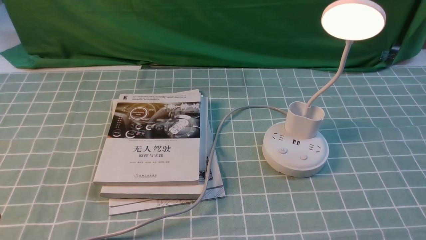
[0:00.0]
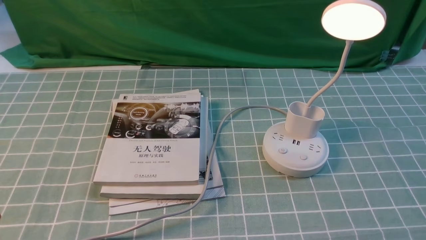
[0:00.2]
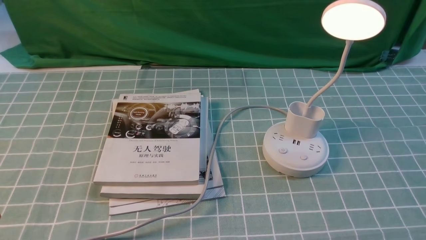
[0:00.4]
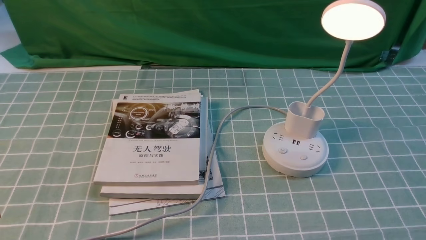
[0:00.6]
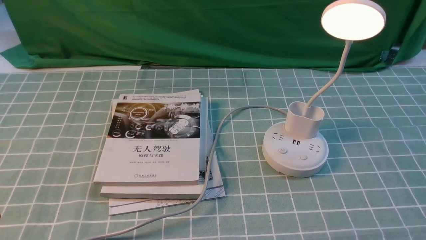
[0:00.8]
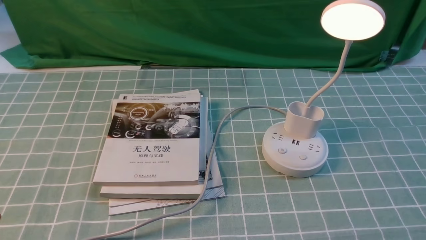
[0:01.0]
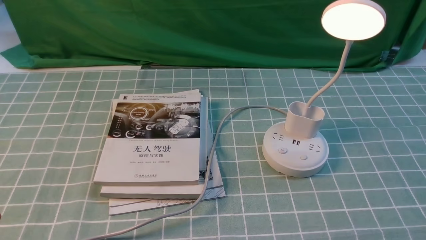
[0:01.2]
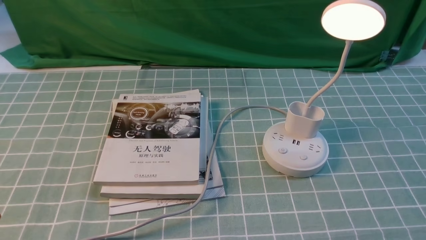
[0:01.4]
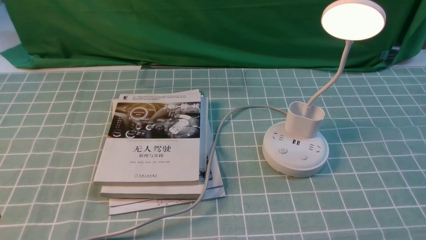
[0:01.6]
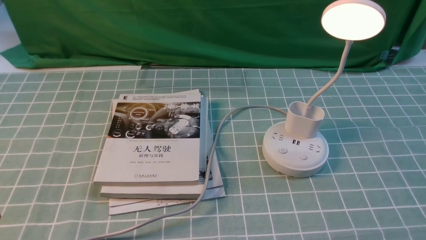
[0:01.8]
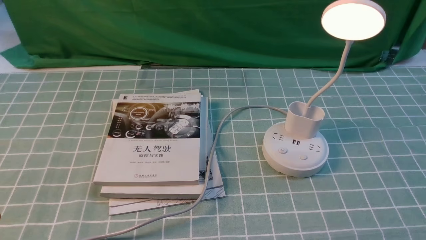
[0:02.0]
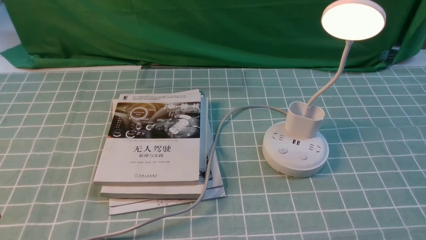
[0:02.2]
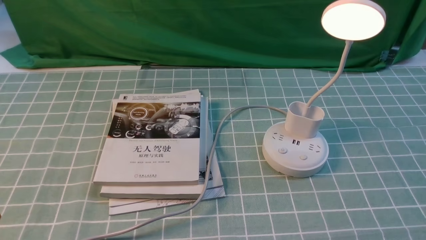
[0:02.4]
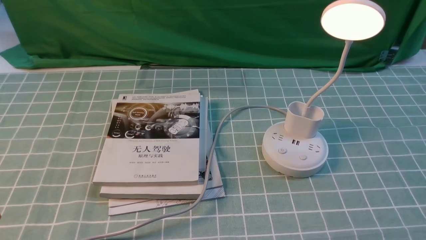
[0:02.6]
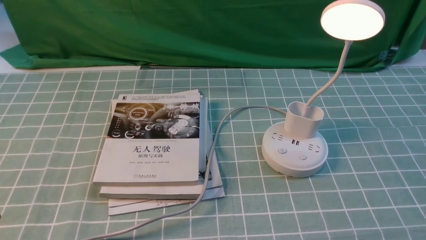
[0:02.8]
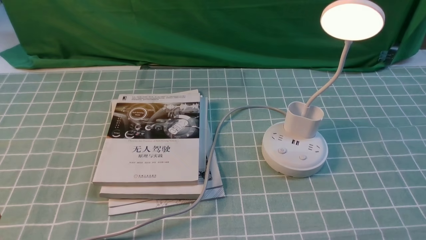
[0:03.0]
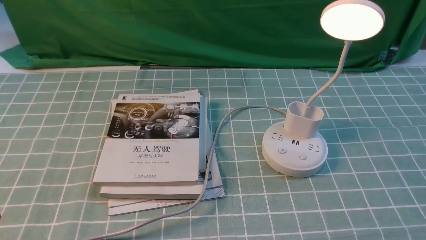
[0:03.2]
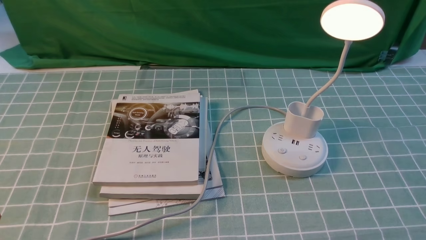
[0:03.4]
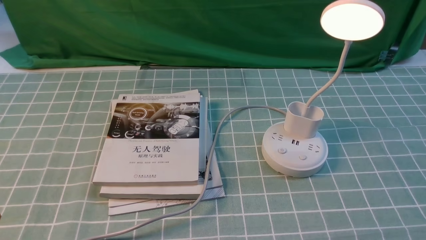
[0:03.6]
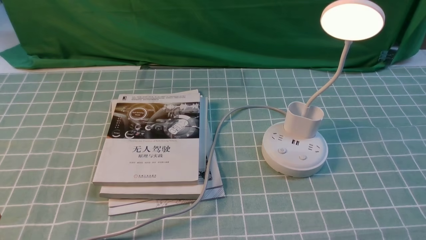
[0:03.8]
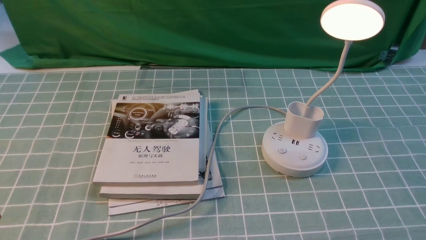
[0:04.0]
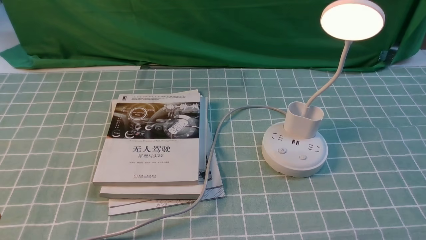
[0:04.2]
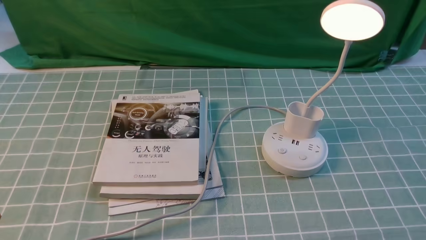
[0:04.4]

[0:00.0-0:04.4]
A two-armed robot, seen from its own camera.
0:01.4 to 0:04.4: Both grippers stay put.

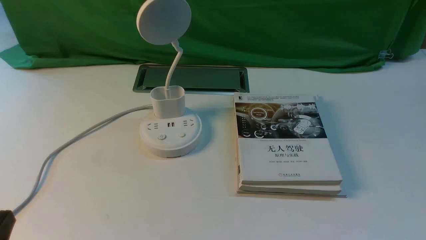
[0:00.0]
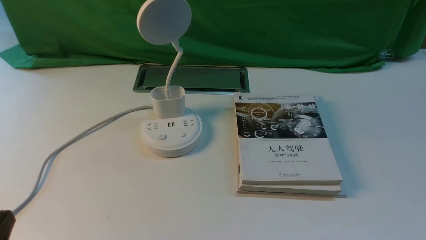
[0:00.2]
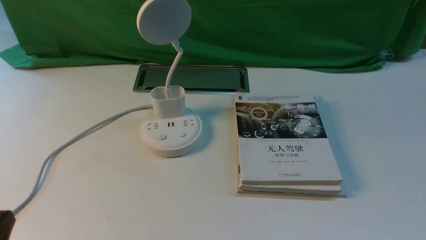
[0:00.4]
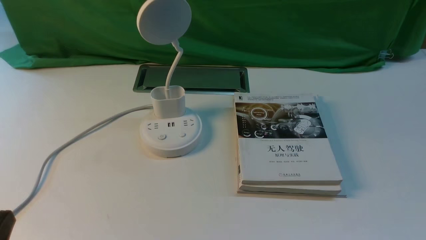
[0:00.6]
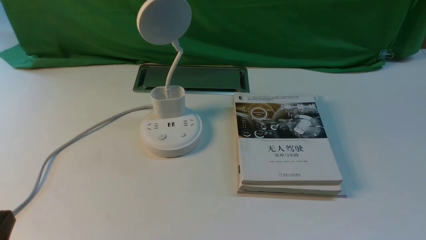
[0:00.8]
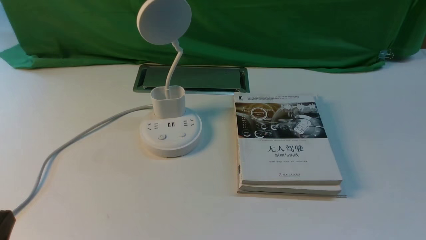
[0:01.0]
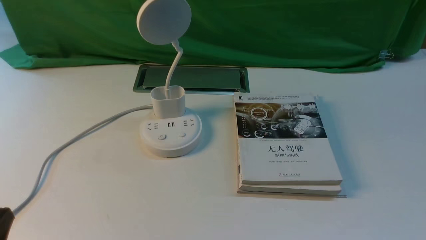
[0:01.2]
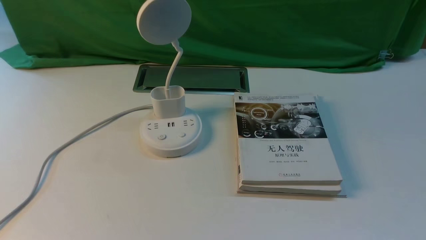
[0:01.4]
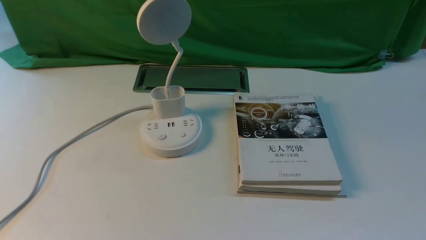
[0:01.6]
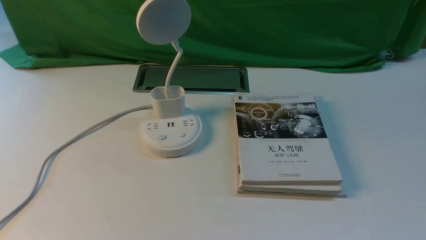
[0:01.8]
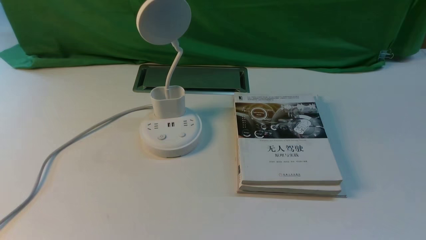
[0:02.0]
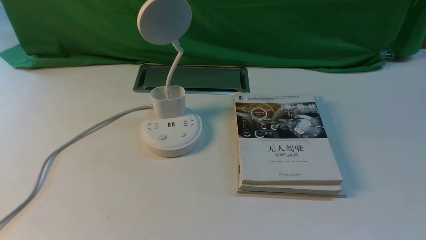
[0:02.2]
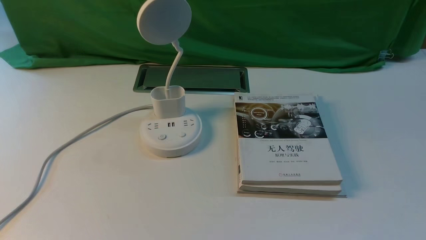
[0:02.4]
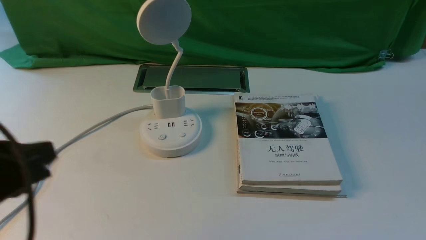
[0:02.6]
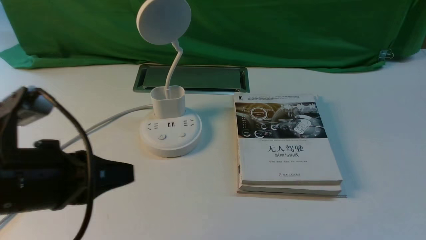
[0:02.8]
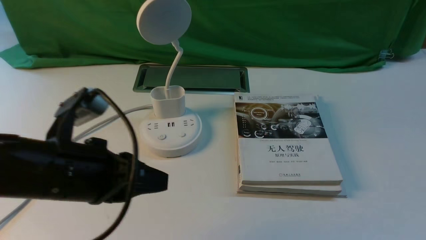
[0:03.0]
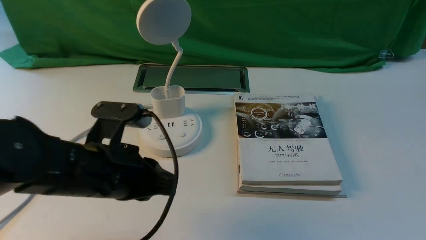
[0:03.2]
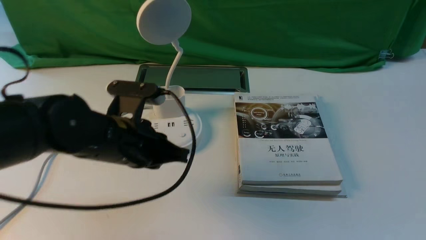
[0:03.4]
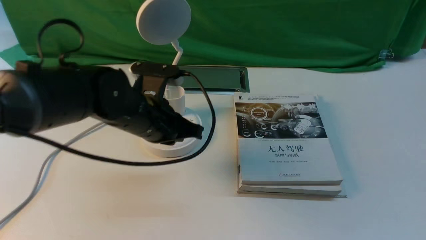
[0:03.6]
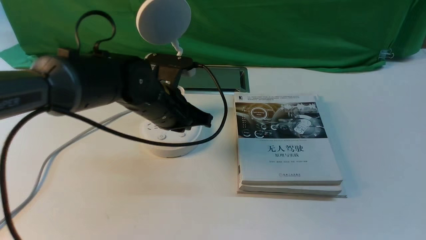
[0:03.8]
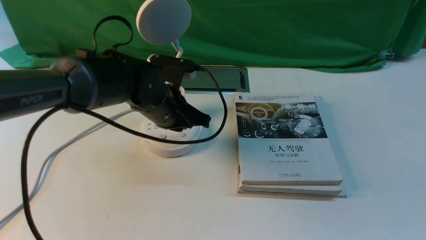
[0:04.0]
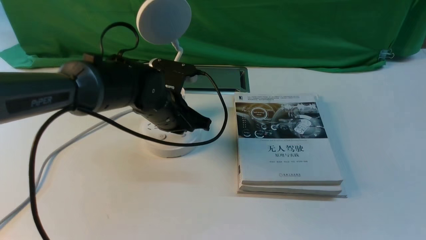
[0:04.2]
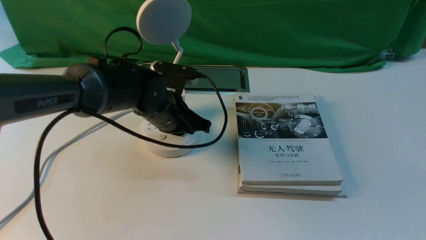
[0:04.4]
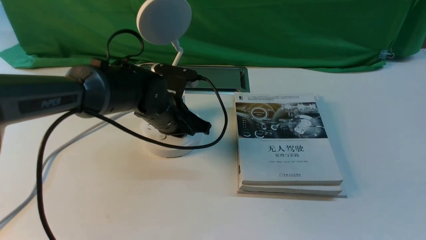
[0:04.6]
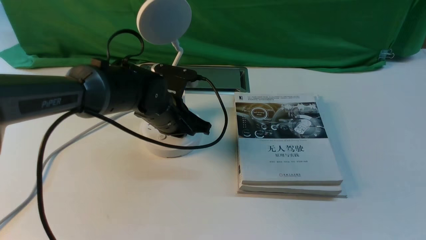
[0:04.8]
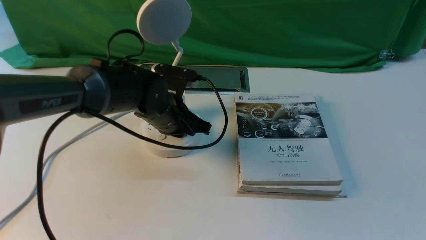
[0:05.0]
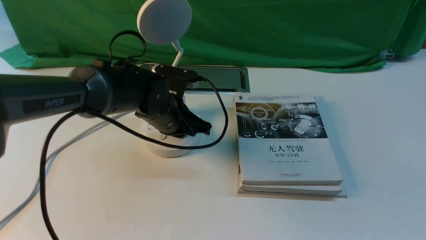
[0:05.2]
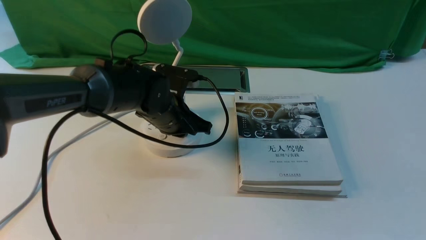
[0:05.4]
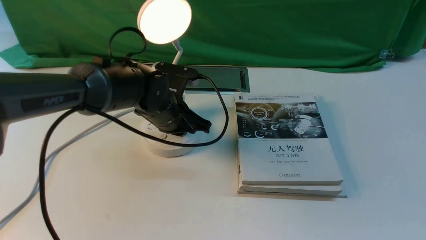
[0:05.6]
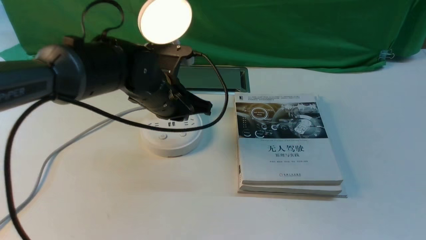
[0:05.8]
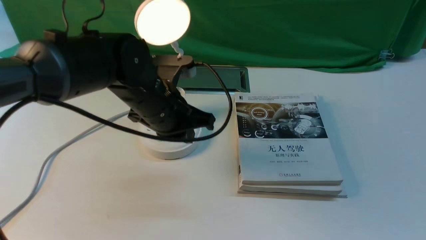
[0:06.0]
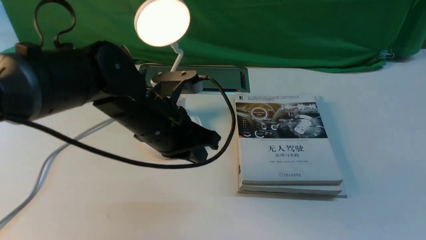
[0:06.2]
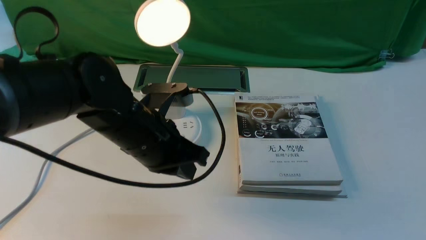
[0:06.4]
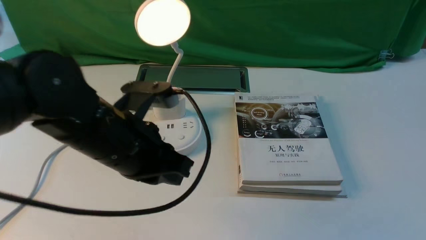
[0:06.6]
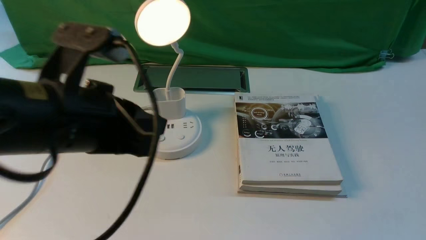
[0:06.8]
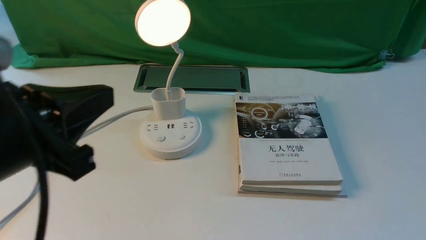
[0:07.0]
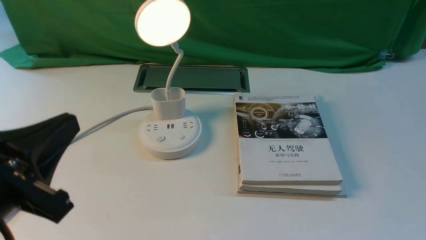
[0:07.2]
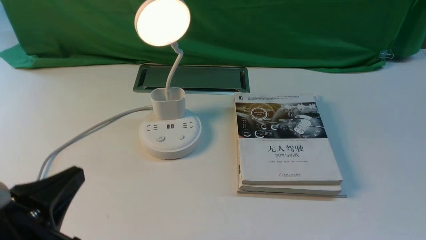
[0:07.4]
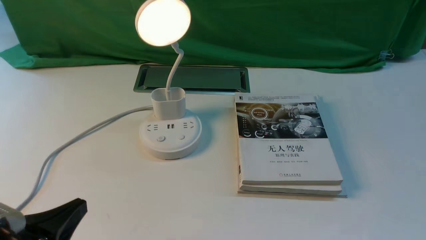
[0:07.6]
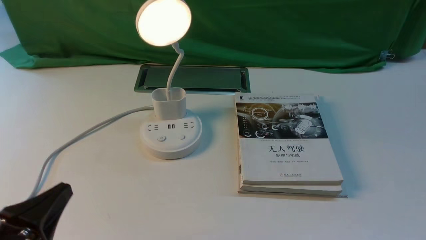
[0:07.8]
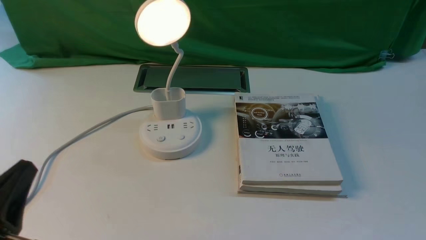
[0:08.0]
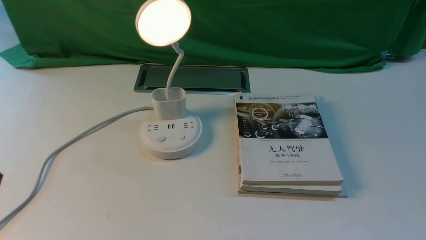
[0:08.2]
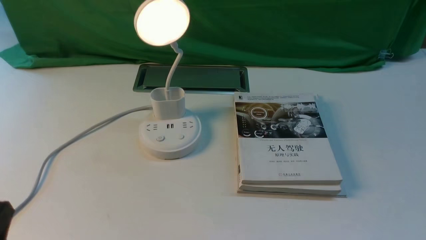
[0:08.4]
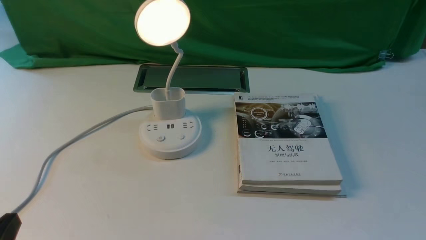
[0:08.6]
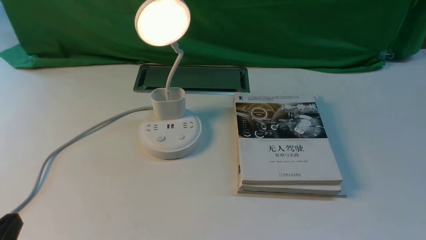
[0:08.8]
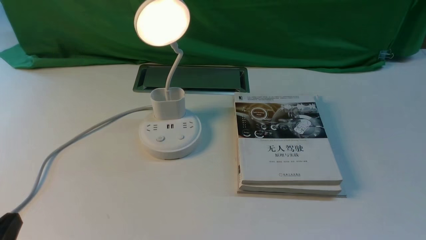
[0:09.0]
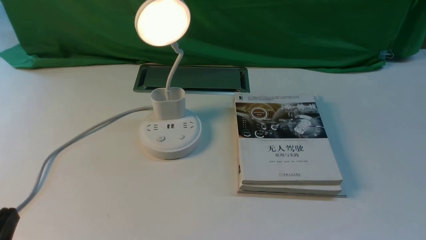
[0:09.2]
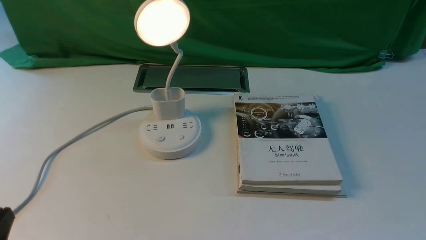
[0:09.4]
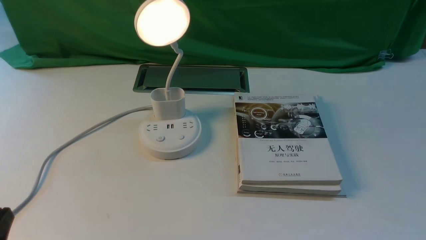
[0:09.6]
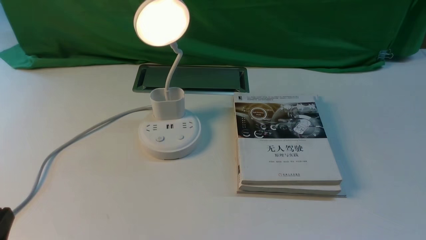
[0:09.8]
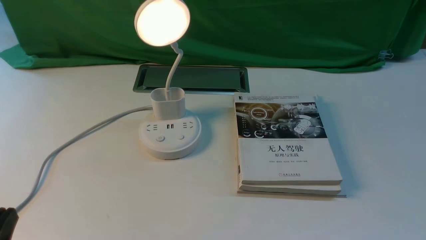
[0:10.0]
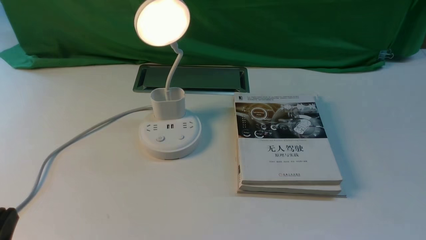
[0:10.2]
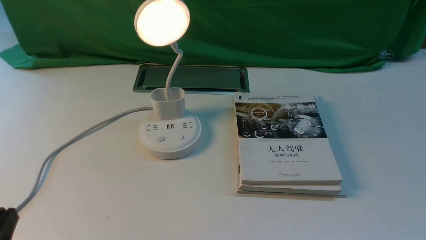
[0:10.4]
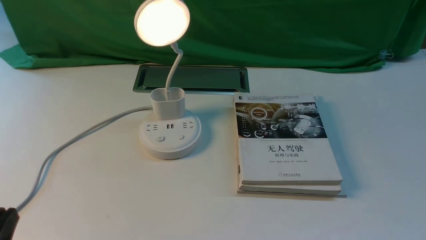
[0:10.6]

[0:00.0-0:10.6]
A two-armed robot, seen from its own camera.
Step, 0:00.0 to 0:06.4: use the left arm to press the button switch on the lamp holder.
0:01.6 to 0:03.0: The left gripper is displaced forward and to the right by roughly 20 cm.
0:03.0 to 0:04.6: The left gripper moves forward, to the right and downward, approximately 20 cm.
0:04.6 to 0:06.0: The left gripper moves upward, about 5 cm.
0:06.0 to 0:07.6: The left gripper is displaced backward and to the left by about 25 cm.
0:07.6 to 0:09.0: The left gripper ends up approximately 5 cm from where it was.

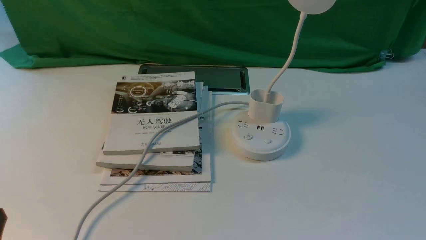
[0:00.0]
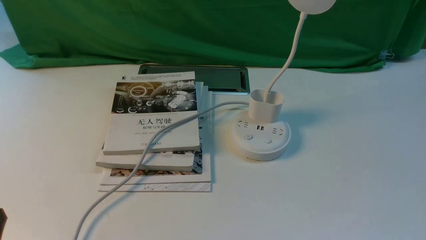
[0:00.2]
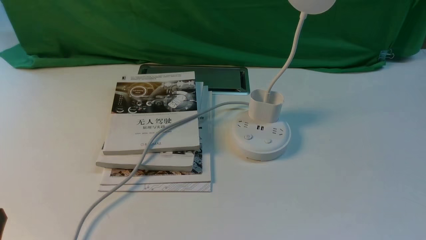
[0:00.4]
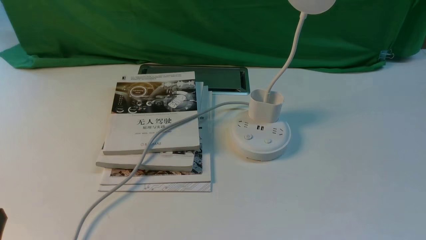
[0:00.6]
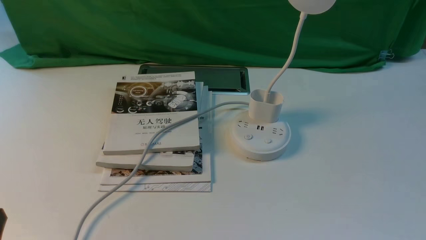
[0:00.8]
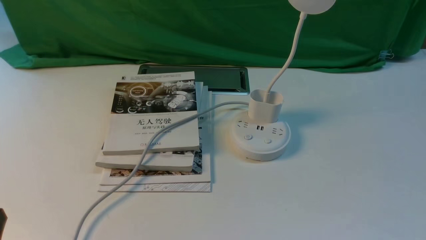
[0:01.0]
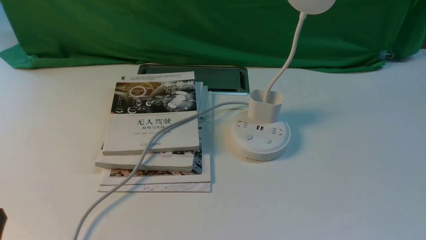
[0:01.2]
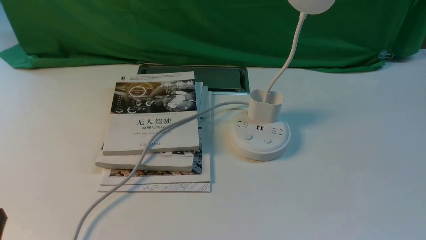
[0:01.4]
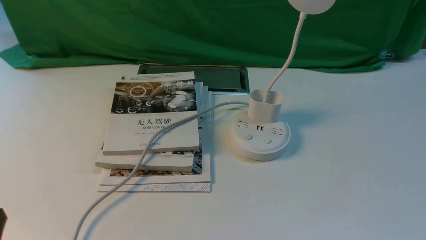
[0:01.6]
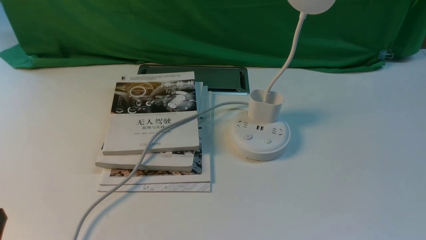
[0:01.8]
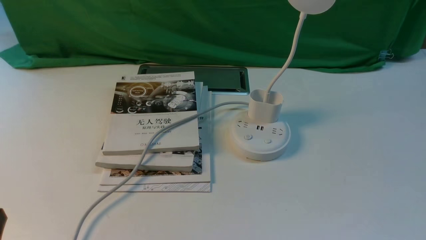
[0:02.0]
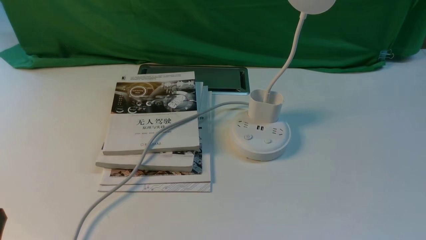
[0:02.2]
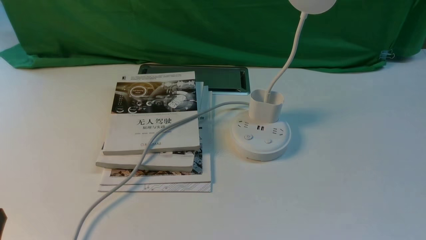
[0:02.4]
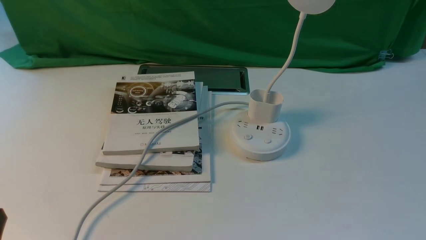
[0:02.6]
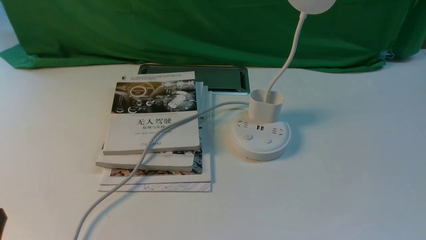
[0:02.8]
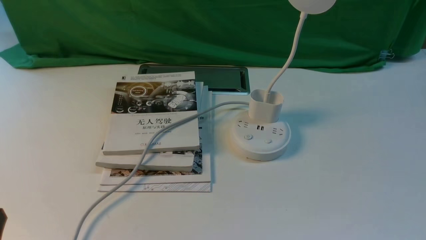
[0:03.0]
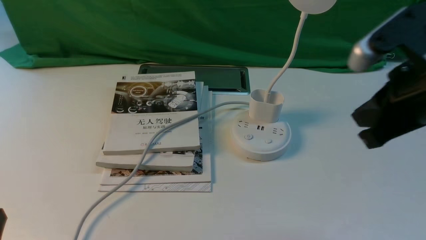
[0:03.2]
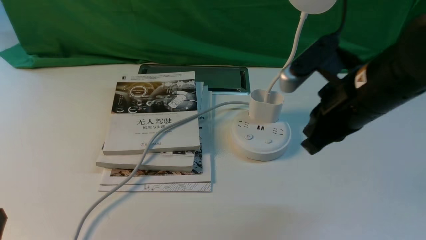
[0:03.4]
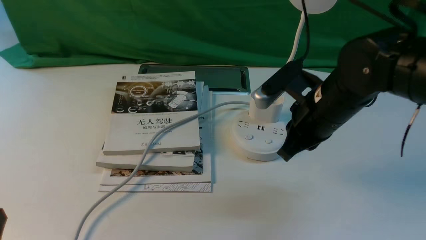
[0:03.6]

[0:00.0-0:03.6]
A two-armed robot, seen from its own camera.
0:01.8 to 0:03.6: The right gripper goes approximately 30 cm forward and to the left, and closes.
